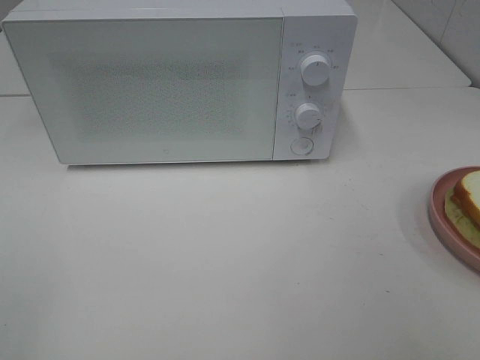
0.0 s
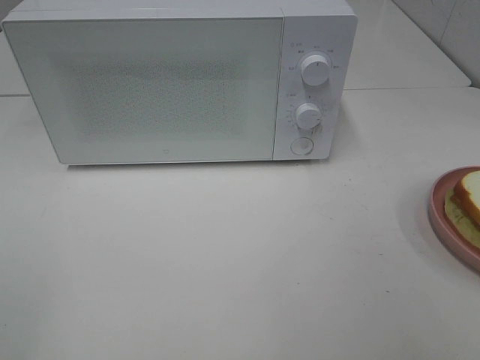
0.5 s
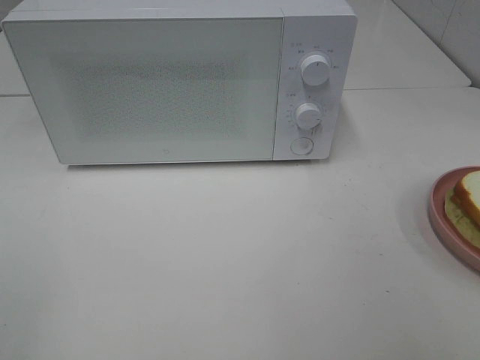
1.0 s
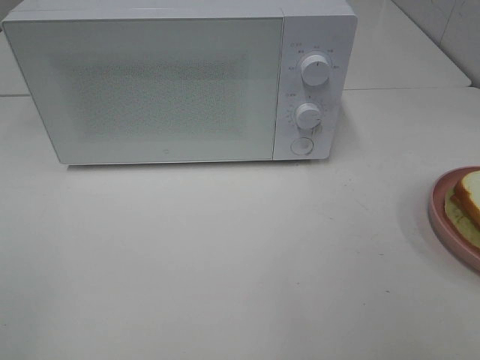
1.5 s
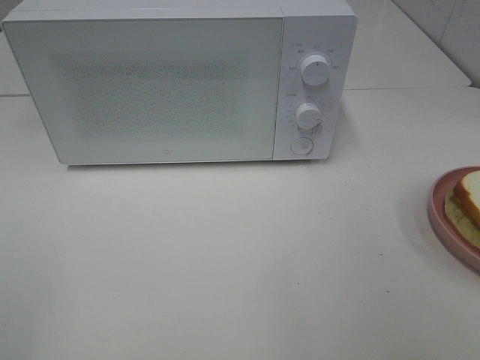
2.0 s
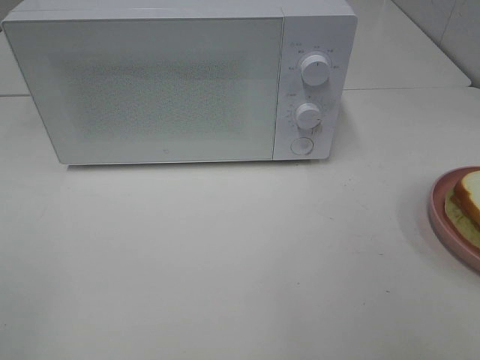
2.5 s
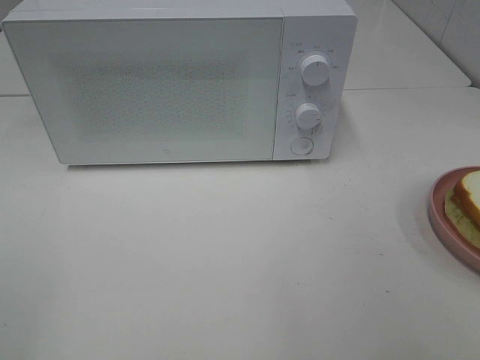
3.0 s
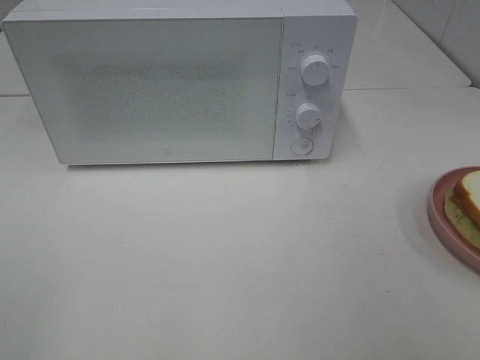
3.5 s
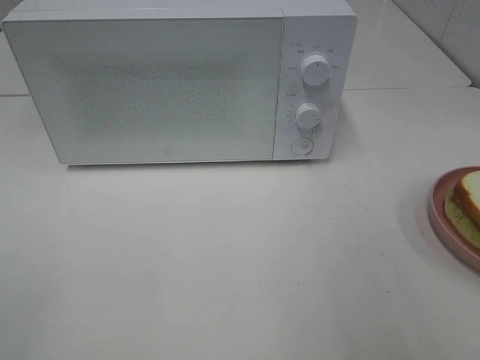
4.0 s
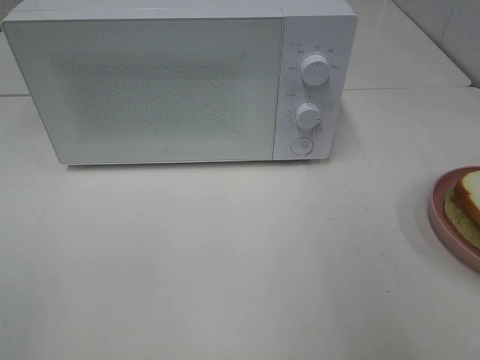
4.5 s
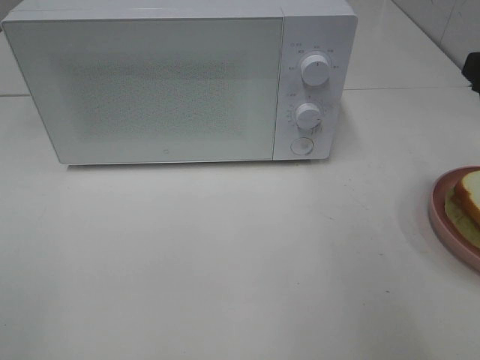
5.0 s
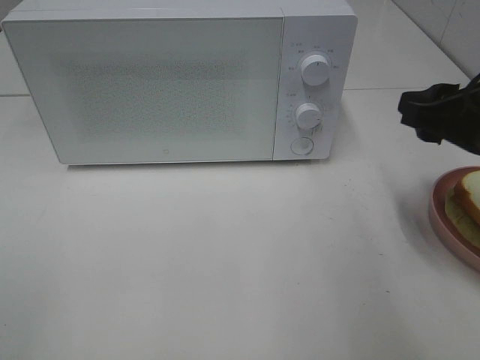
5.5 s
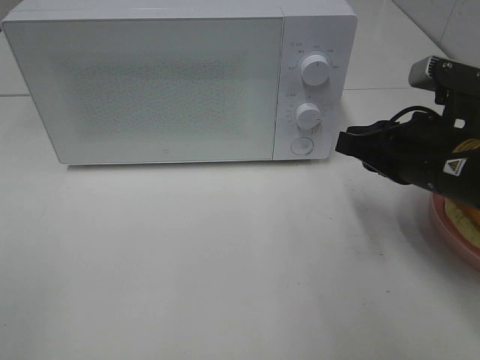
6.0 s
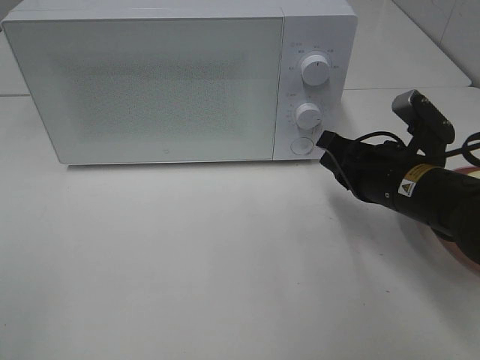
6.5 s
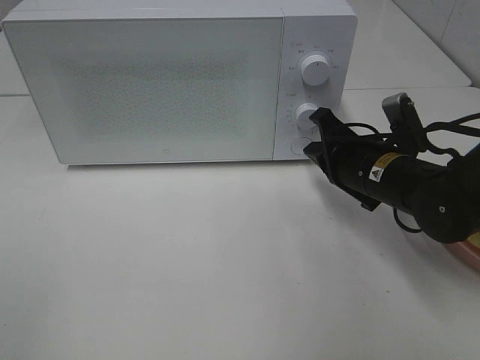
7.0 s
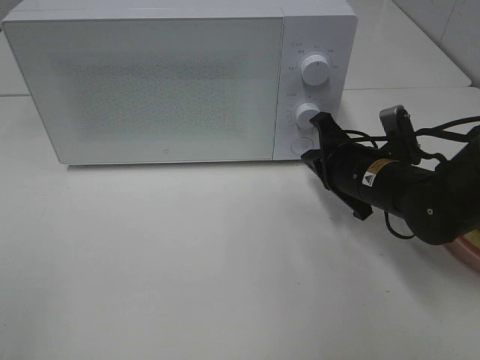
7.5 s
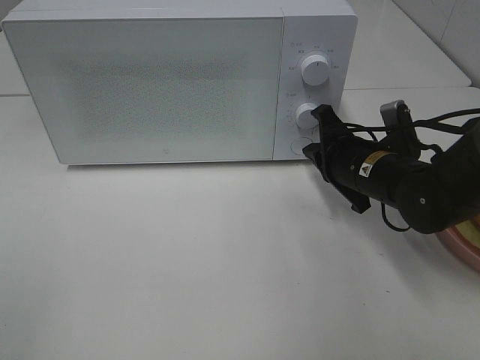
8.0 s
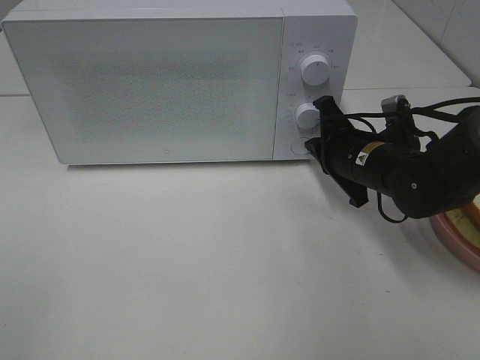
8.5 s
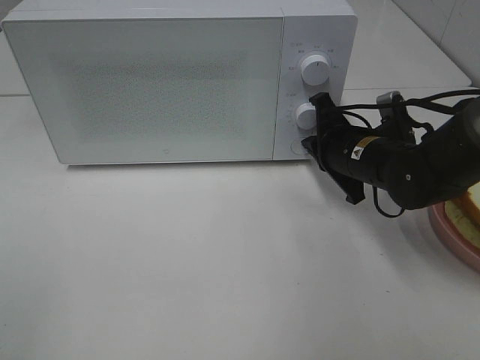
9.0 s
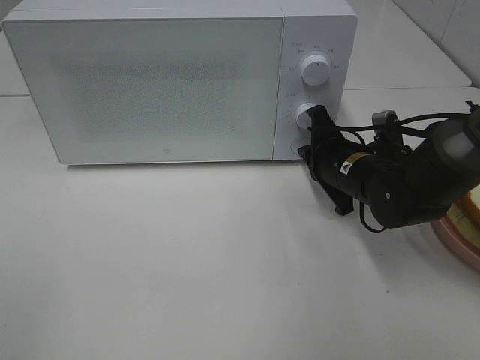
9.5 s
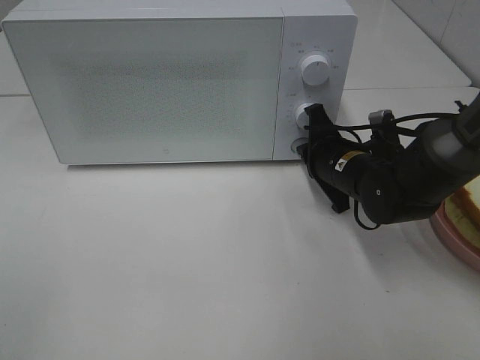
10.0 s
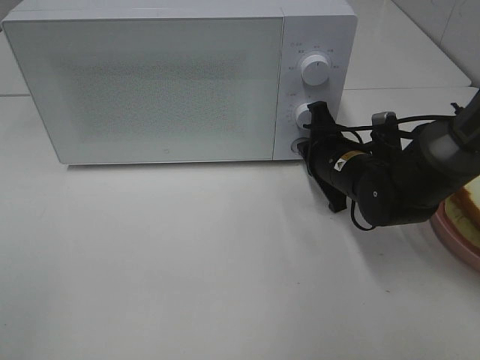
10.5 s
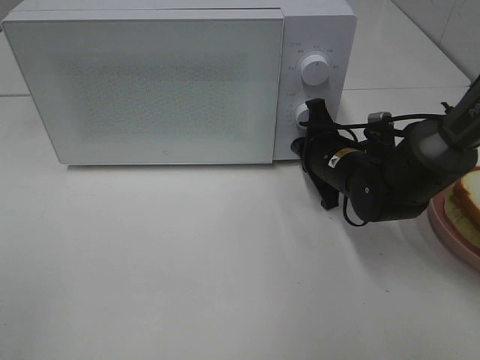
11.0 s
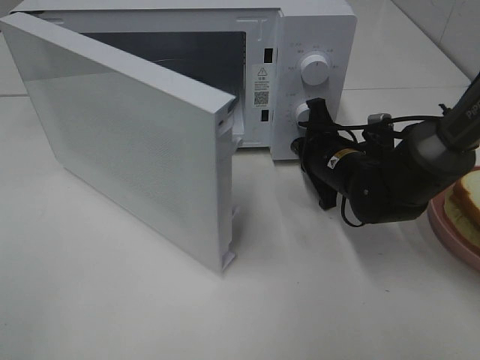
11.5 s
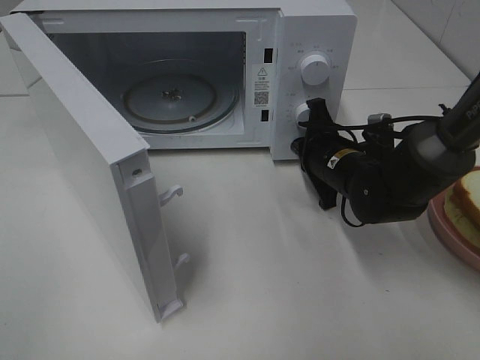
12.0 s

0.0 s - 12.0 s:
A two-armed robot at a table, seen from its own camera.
Task of the whole recording: Heat Sandwich.
4.0 s - 6.0 s: The right gripper travels downward, forward and to the left by some 20 cm, and closes up.
6.0 s - 8.0 s: The right gripper goes about 10 cm forward and downward.
8.0 s - 10.0 s: The grippers stay close to where they were, moving slightly.

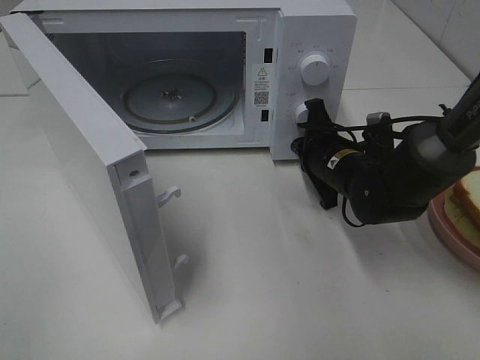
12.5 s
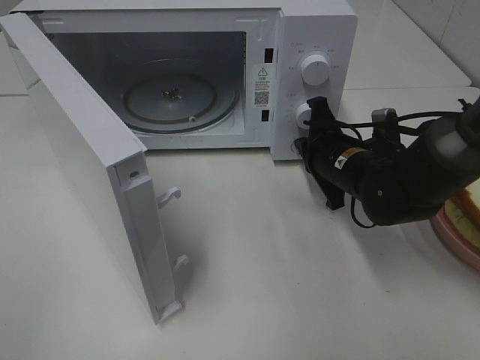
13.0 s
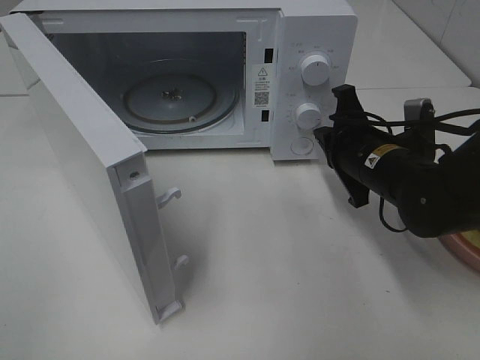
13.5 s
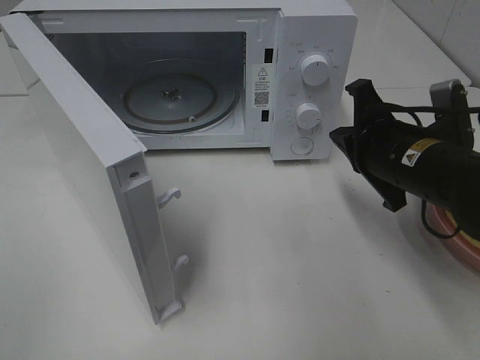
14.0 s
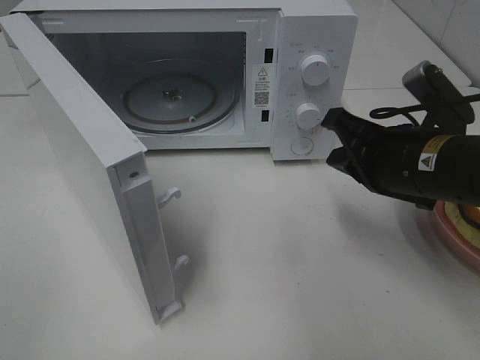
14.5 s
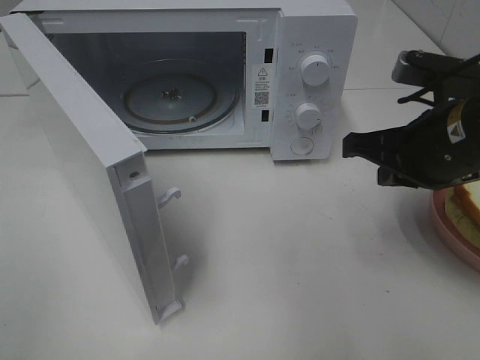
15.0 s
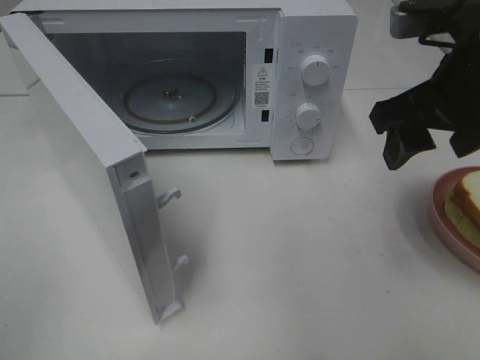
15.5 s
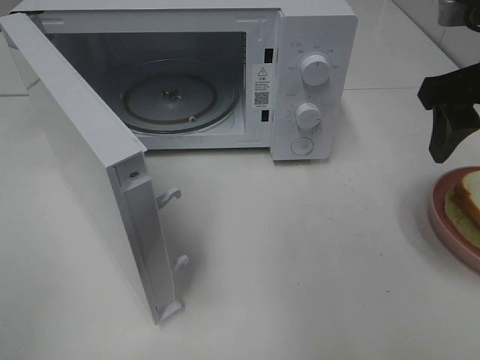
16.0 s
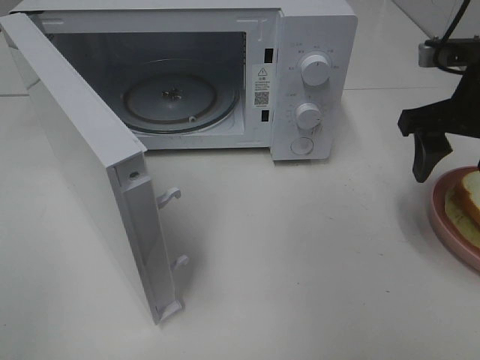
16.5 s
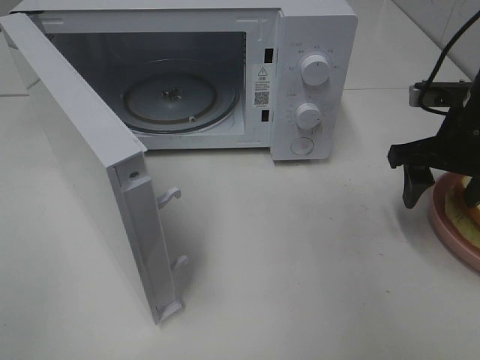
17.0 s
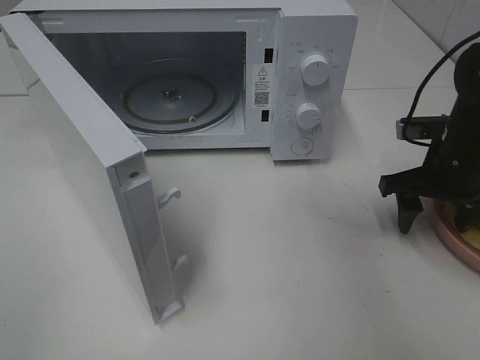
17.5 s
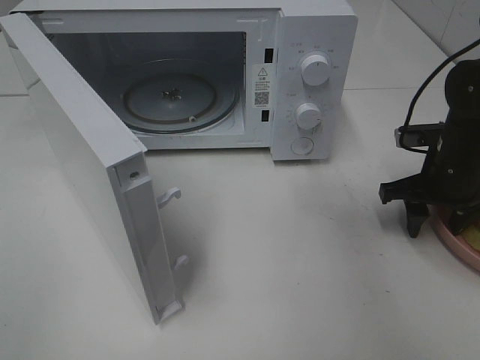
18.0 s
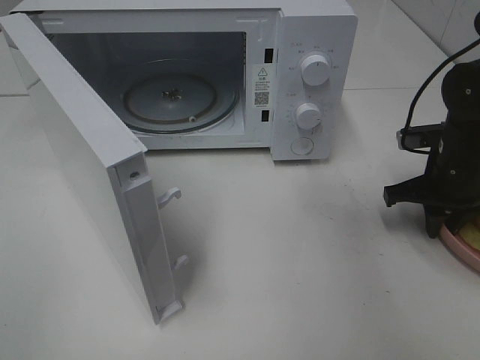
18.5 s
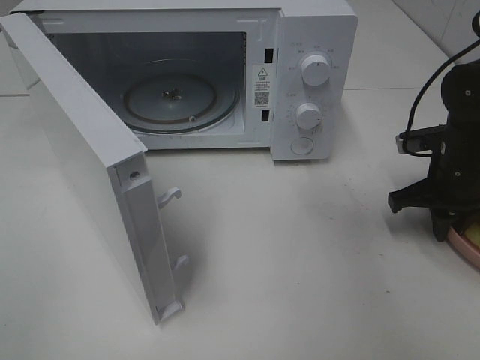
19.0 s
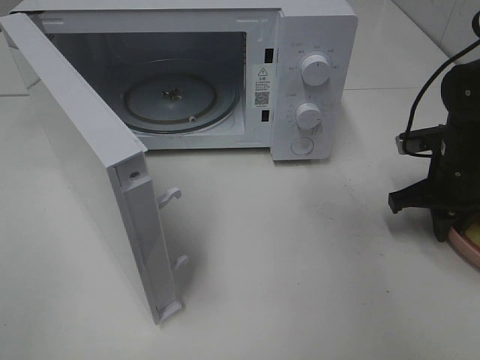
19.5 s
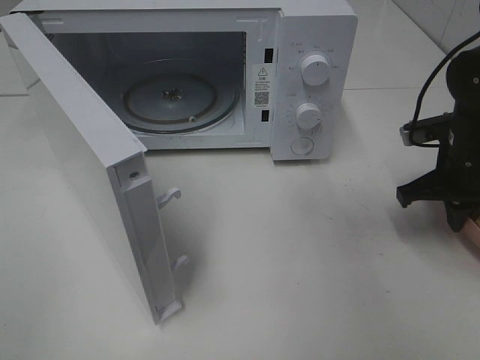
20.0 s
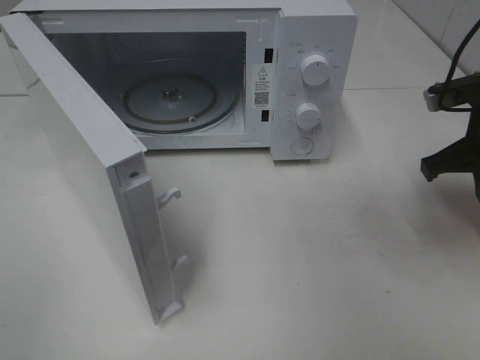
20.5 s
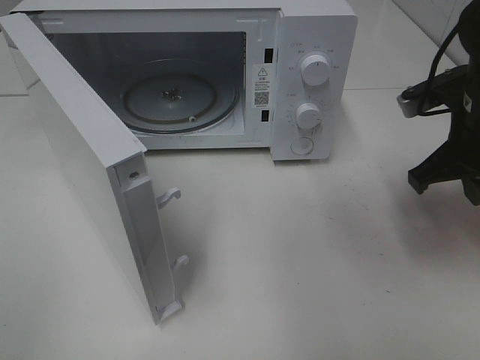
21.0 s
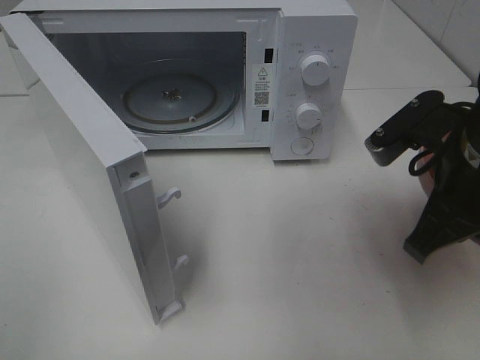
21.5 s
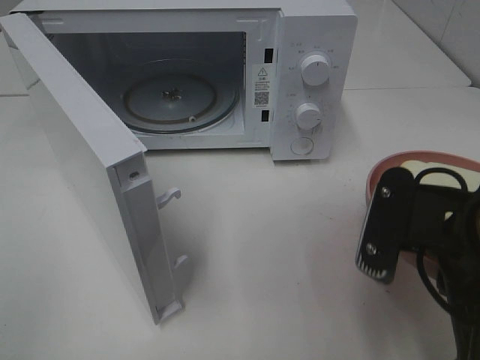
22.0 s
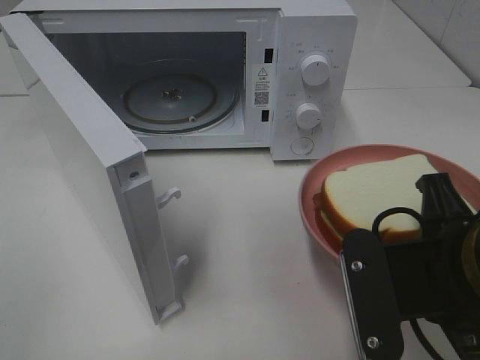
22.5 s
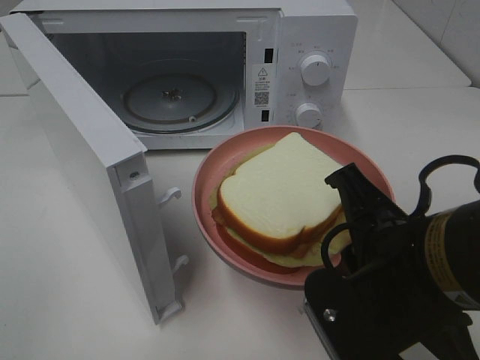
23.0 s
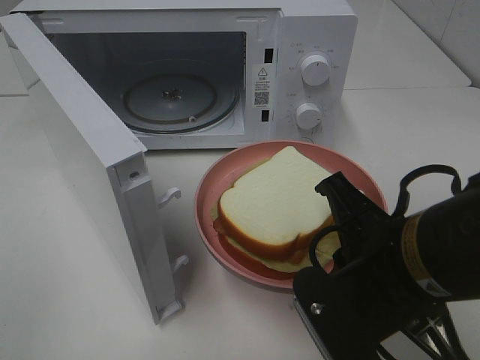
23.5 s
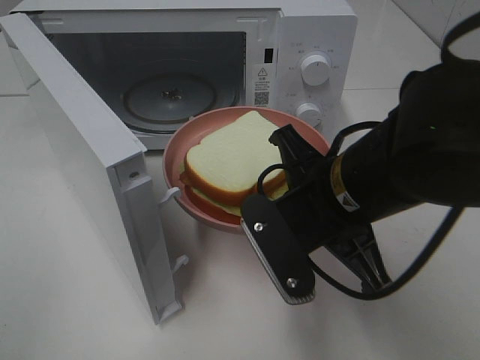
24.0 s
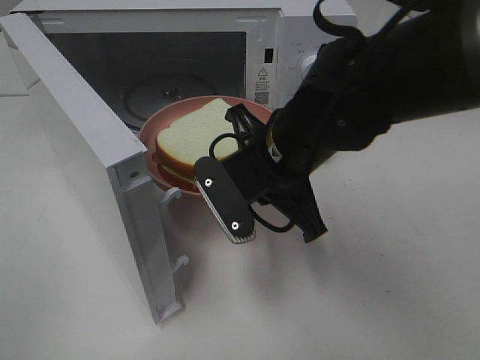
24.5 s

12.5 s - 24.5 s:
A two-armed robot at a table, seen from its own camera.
Task of the whole recording: Heat Sandwich.
Step, 14.0 s - 18.5 s: Right hand: grab the plate with the sandwich.
12.5 s - 14.5 s: The right gripper moves backward and upward, roughly 15 cm.
14.5 s - 16.5 s: The right gripper moves to the right, forward and upward, about 10 cm, and opens its fingers.
16.5 s - 18.5 s: The right gripper shifts about 10 cm downward, and closes.
18.5 s - 20.5 s: The right gripper heads upward, covering approximately 10 cm.
20.5 s - 22.5 s: The right gripper goes some 20 cm backward and to the left.
22.5 s - 24.5 s: The right gripper moves forward and to the left, about 20 cm.

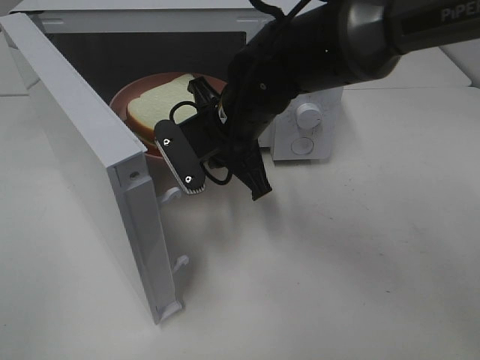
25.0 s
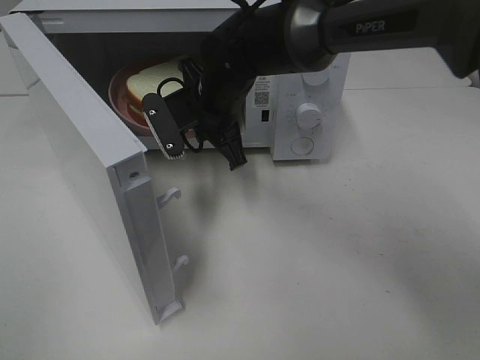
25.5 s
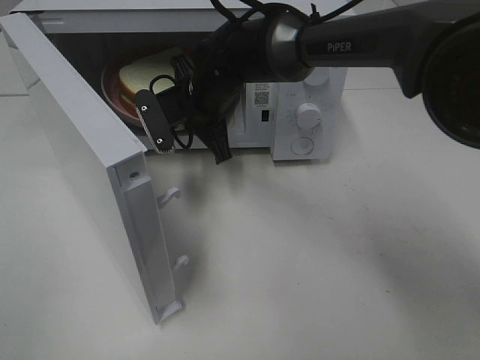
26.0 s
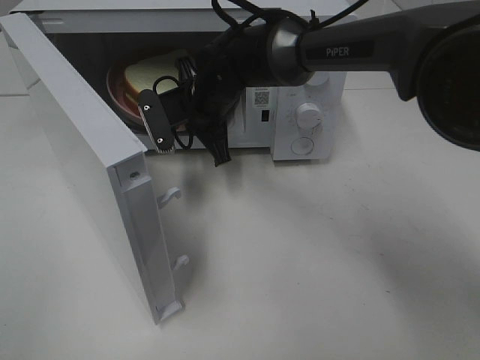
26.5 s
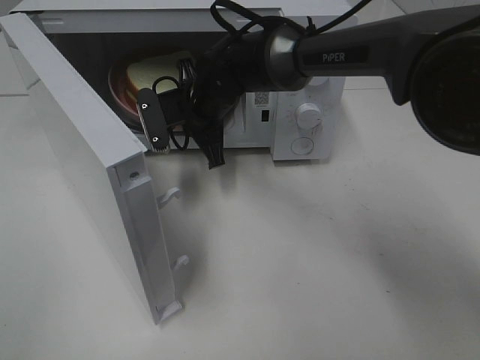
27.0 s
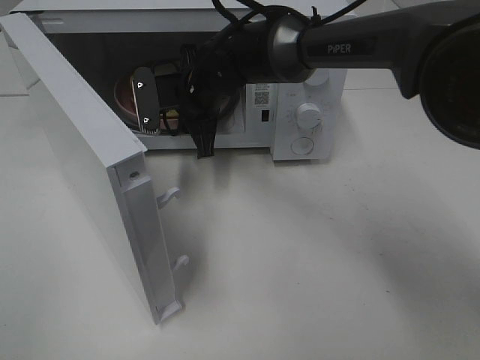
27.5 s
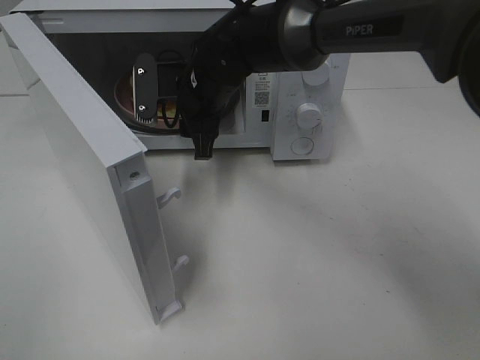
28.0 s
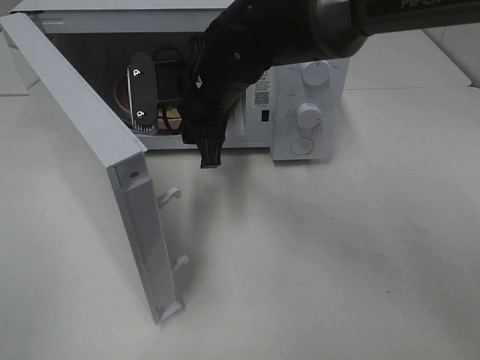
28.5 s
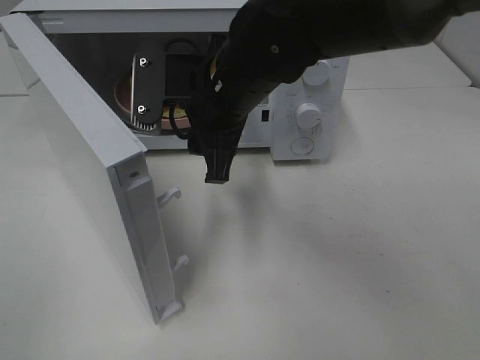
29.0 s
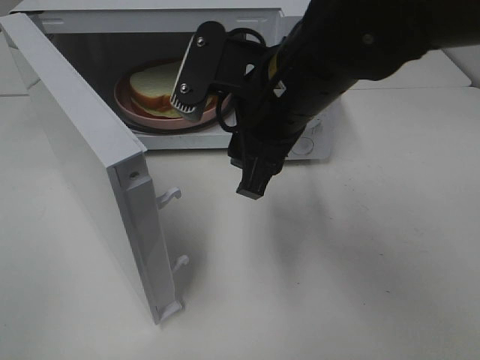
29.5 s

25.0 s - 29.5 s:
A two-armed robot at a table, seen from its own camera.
Task of the whole recording: Heat Sandwich.
Step, 25.0 s - 28.5 s: Right hand: place the plate in the microwave.
25.0 s - 27.0 s: The right gripper heads forward, covering roughly 10 cm.
27.0 s - 29.5 s: The right gripper goes some 20 cm backward, upward and to the right, and opens.
